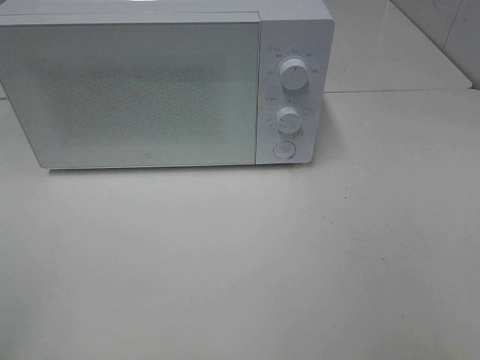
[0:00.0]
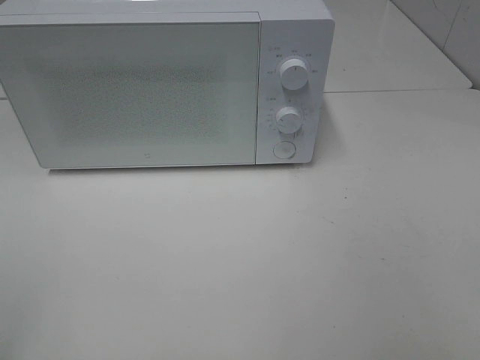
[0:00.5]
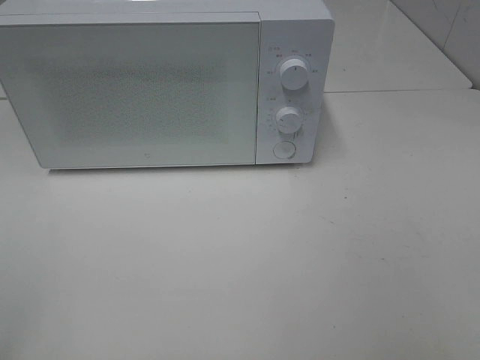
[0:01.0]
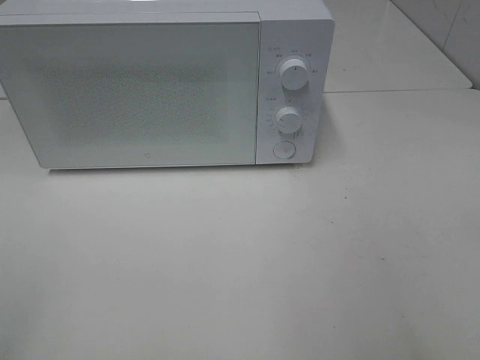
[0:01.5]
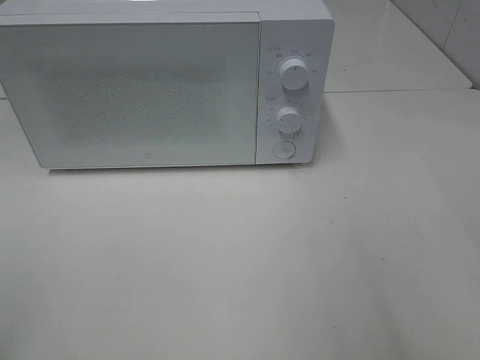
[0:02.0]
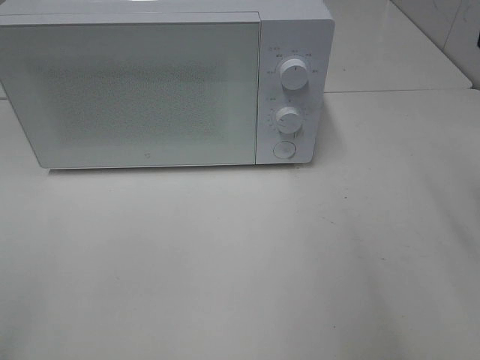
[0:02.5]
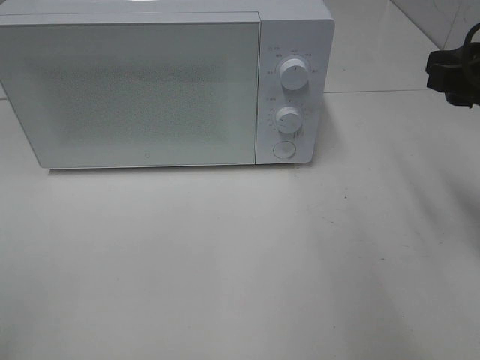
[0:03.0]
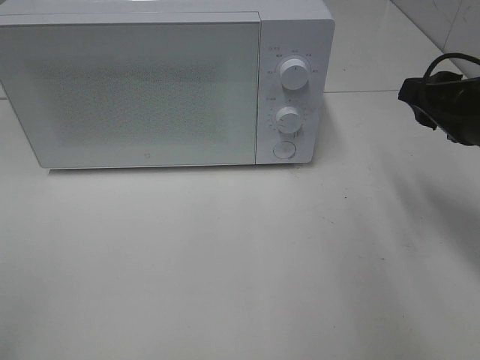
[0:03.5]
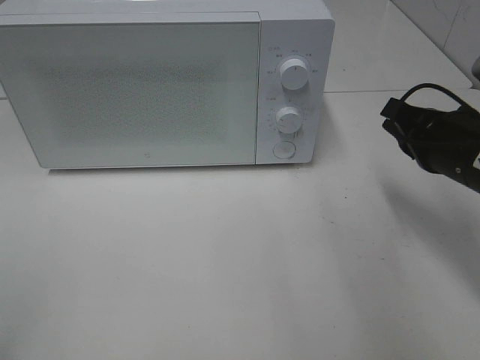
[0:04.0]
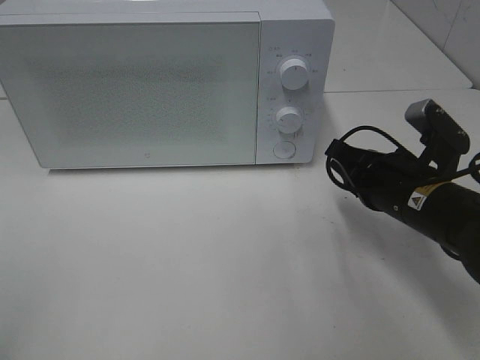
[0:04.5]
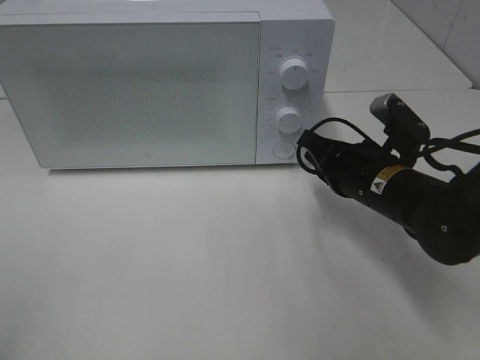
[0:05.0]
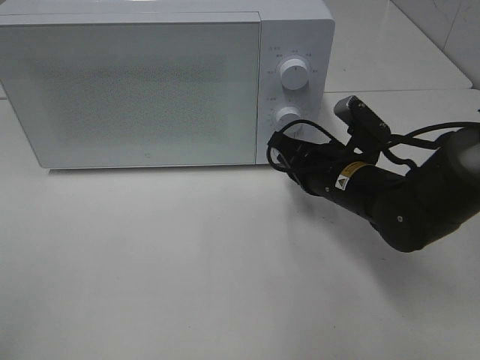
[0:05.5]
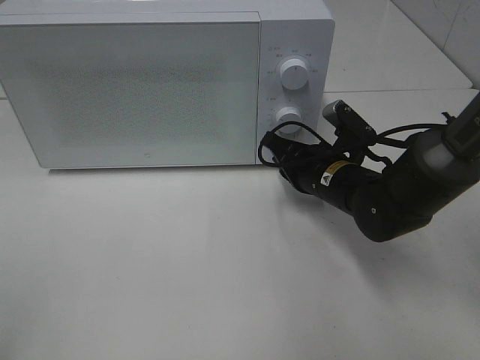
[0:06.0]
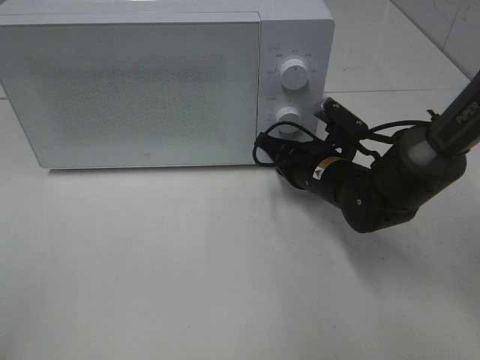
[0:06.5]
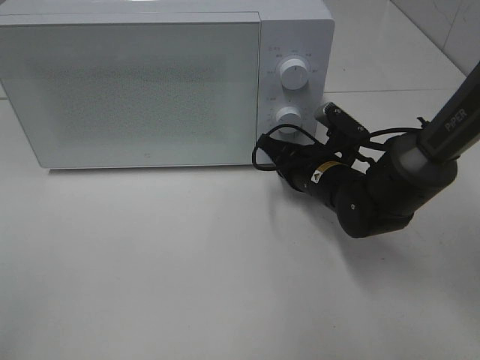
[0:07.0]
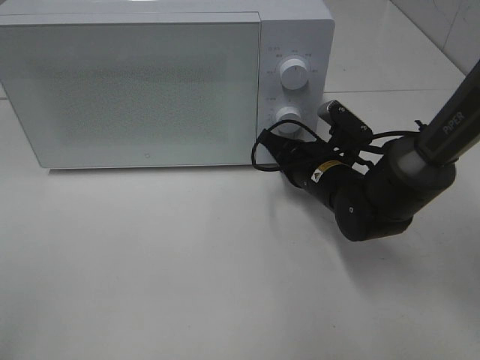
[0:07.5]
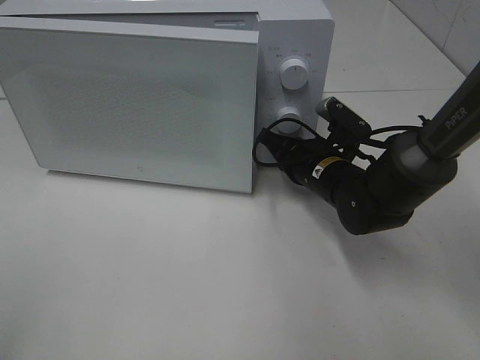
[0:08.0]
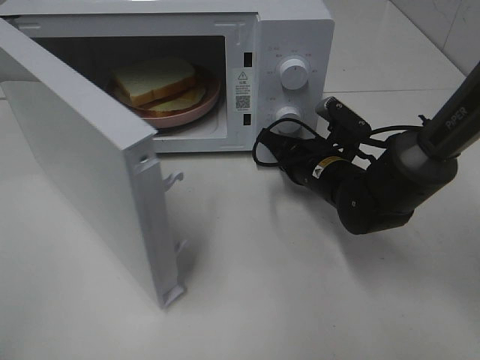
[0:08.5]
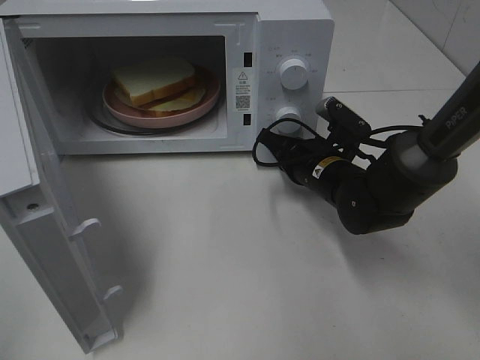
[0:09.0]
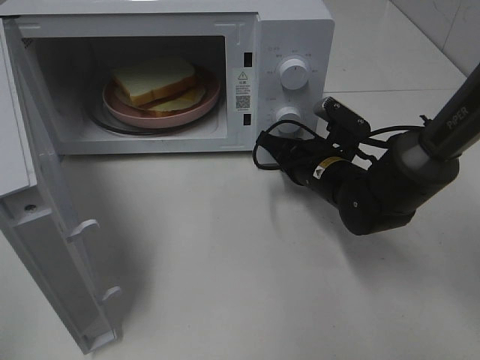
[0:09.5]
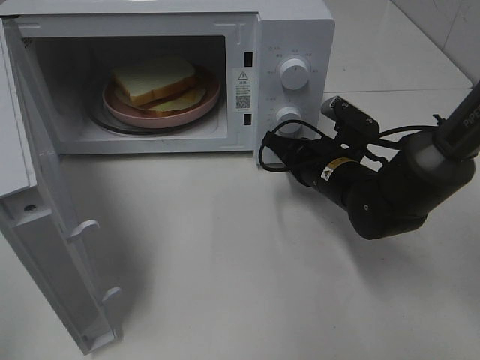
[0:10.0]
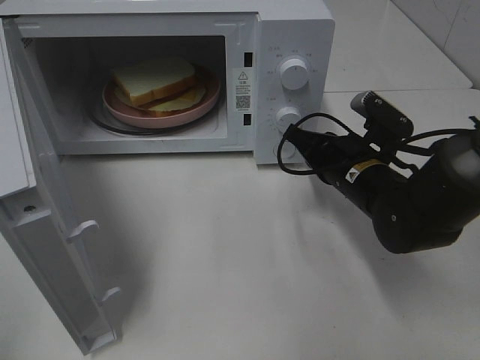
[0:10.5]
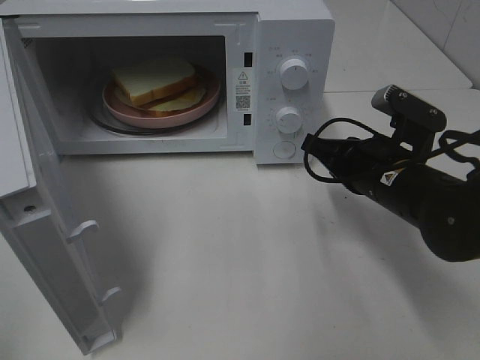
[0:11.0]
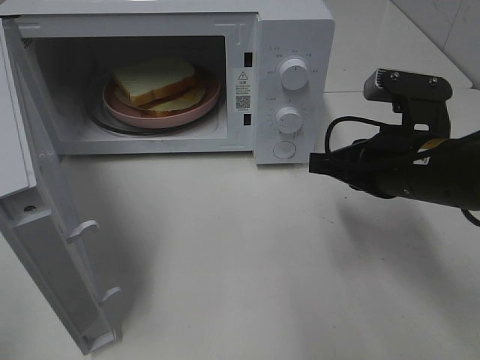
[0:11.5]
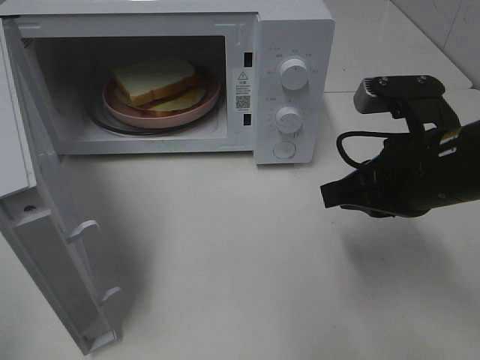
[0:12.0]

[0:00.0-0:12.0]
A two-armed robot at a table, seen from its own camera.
Task of the whole recording: Heat Sandwich.
Step, 0:00.0 to 0:10.5: Right hand: press the switch.
0:02.0 to 0:04.0: The right gripper goes about 20 cm downward and forward, and closes.
0:04.0 to 0:06.0: The right gripper goes approximately 15 cm to the left, downward and forward.
0:06.0 to 0:08.0: The grippers stay close to where they were, moving slightly.
0:10.0 to 0:12.0: The right gripper goes some 15 cm upward and backward.

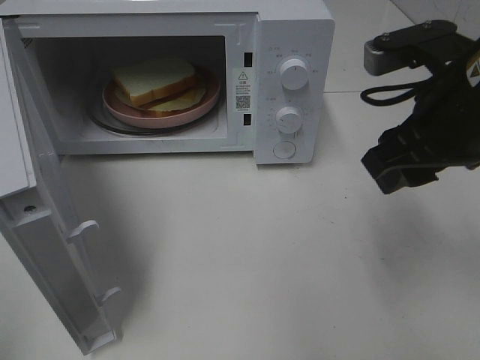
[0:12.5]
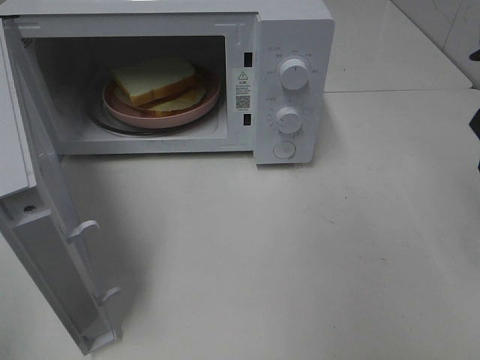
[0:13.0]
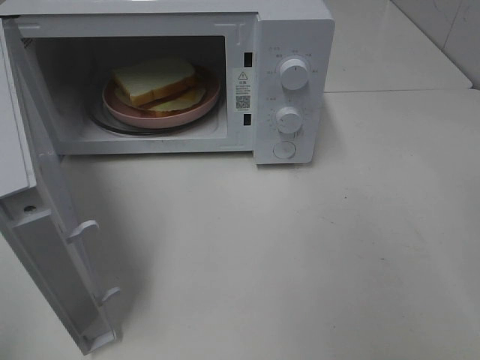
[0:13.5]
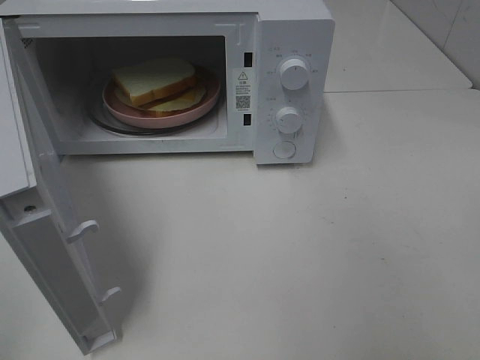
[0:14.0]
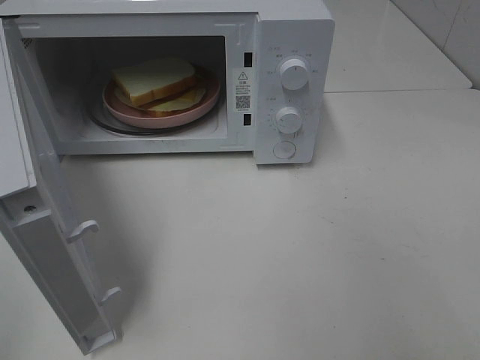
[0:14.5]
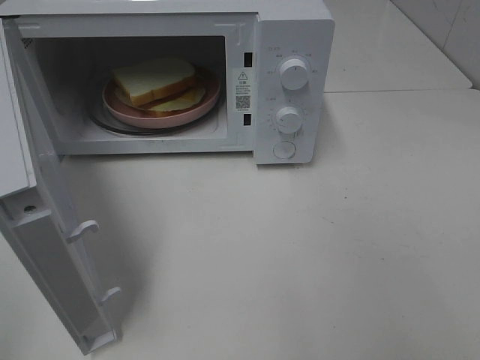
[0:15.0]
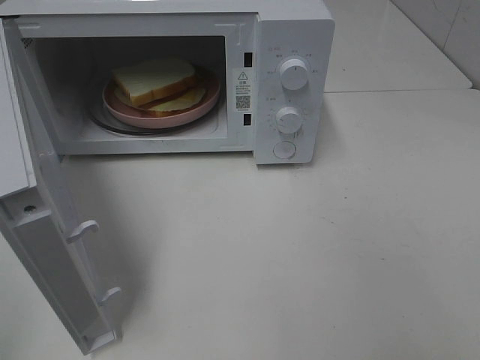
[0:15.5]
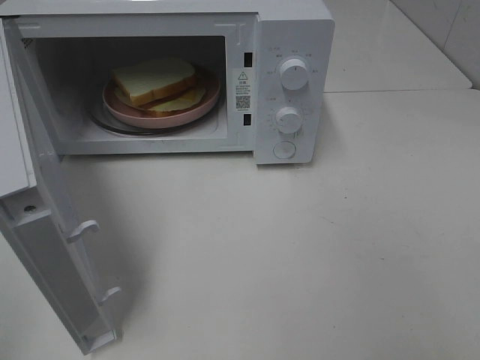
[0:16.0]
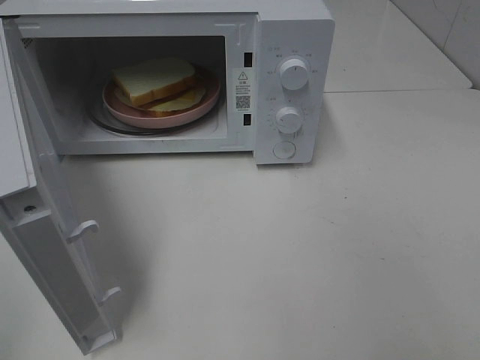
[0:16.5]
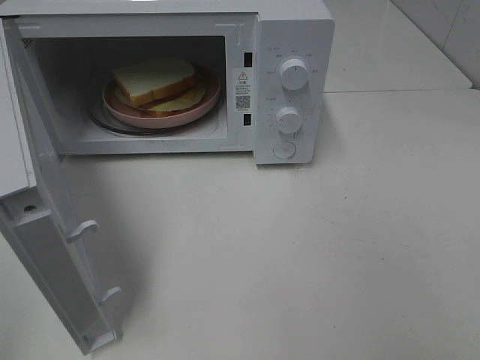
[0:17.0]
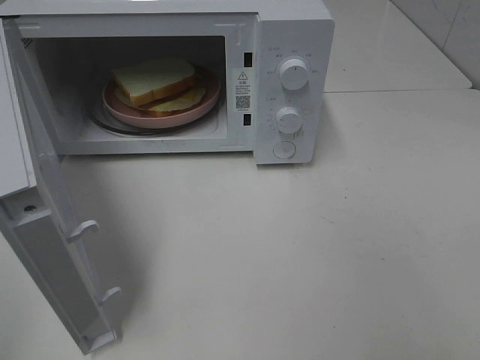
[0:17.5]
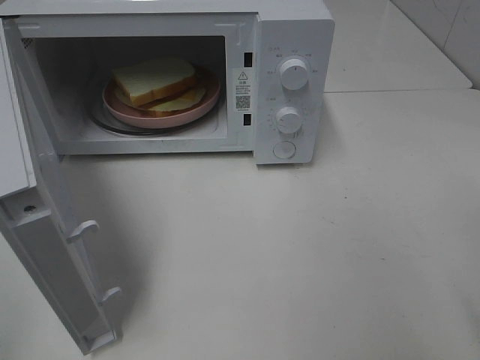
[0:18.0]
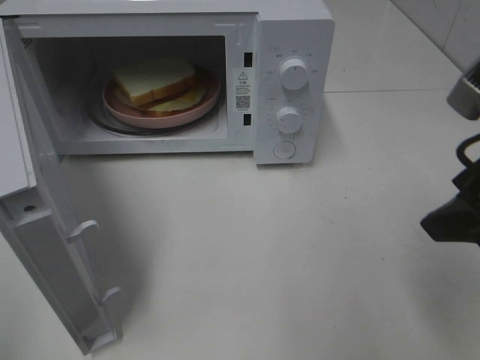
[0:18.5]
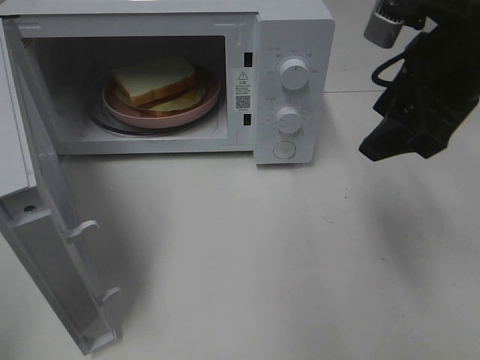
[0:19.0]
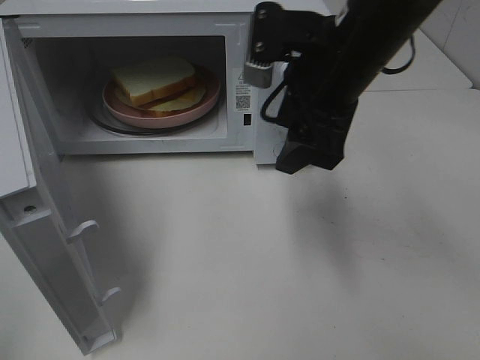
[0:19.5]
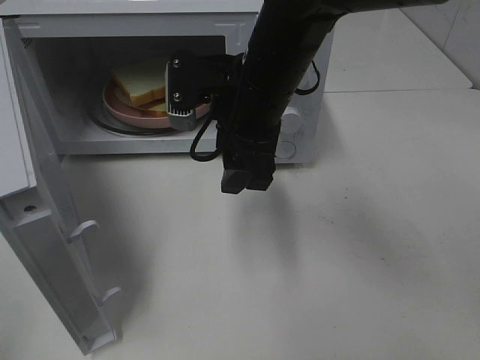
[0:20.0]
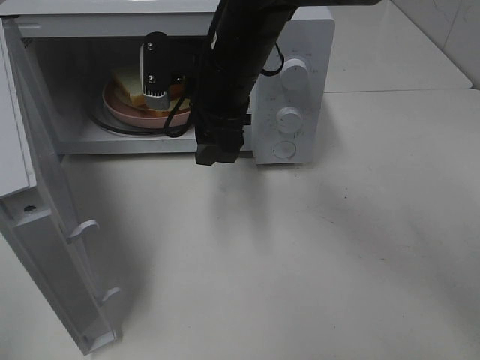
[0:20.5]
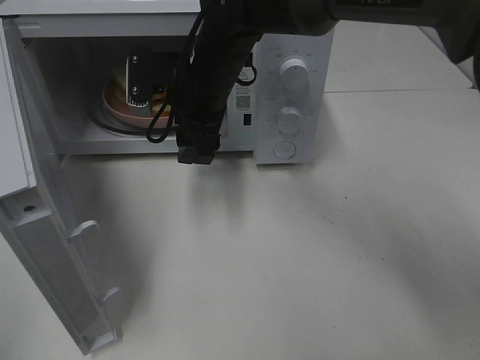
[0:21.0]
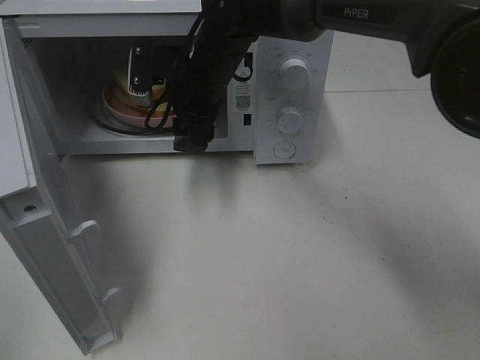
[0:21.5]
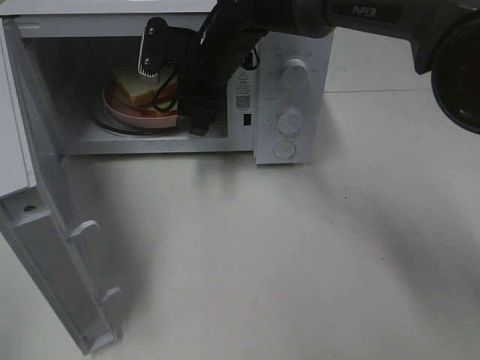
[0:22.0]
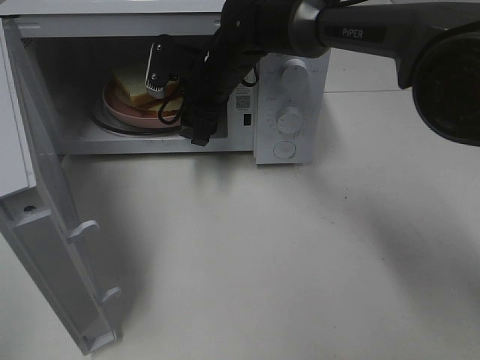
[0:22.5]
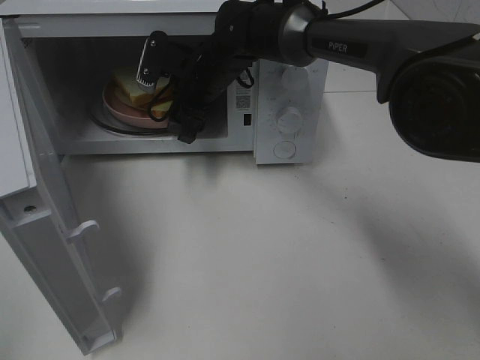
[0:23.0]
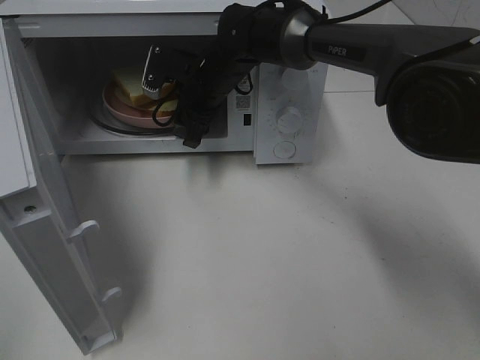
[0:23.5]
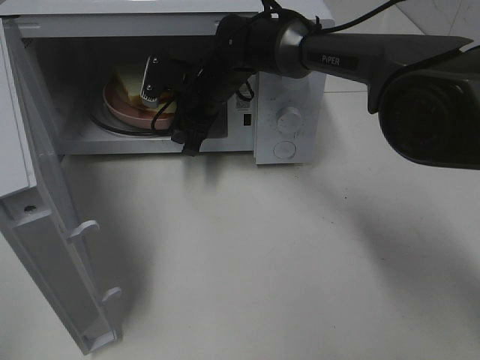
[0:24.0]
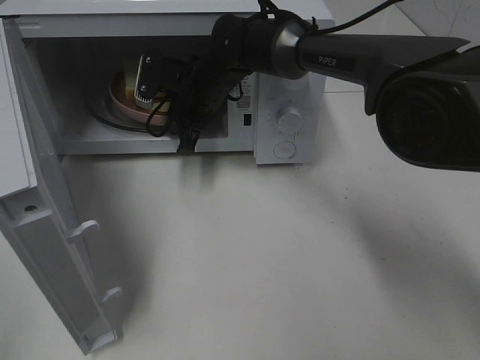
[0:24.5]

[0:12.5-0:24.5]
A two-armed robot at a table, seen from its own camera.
Task of the whole recording: Heat Sandwich.
0:12.5 to 0:14.5: The right gripper shifts about 20 cm backward and to the right.
0:16.5 to 0:18.5: The right gripper shifts approximately 20 cm forward.
0:18.5 to 0:20.5: The right gripper shifts roughly 30 cm to the left and forward.
0:20.5 to 0:22.5: The right gripper shifts about 10 cm forward and downward.
0:22.5 to 0:24.5: The right gripper closes.

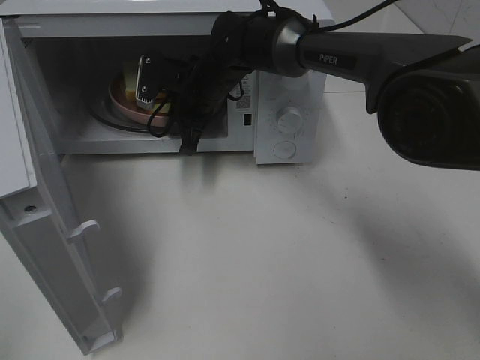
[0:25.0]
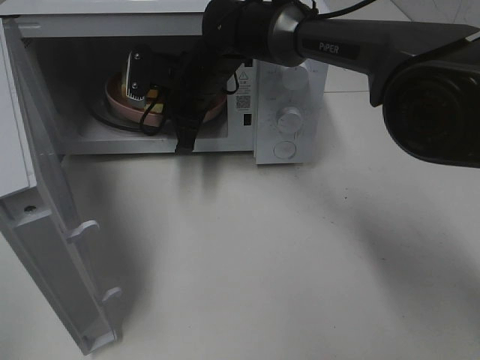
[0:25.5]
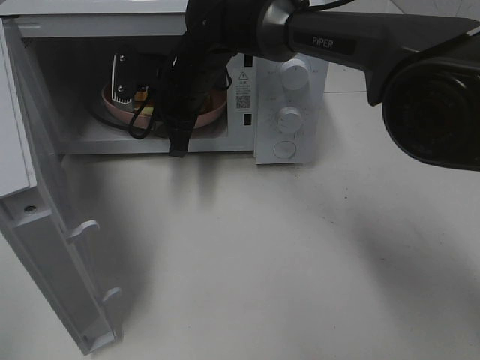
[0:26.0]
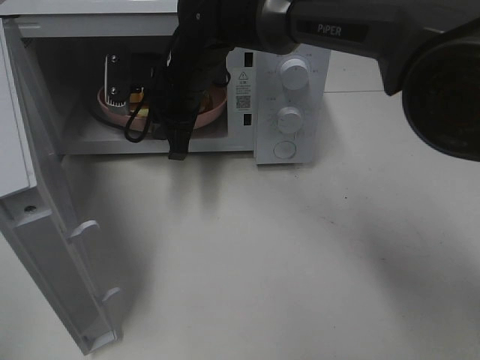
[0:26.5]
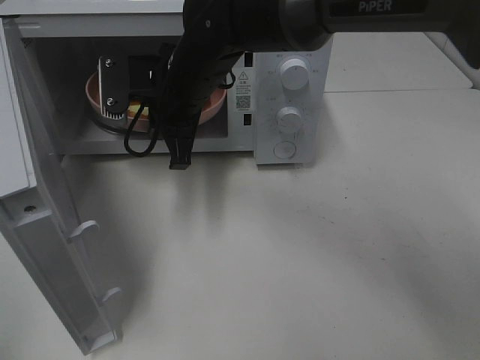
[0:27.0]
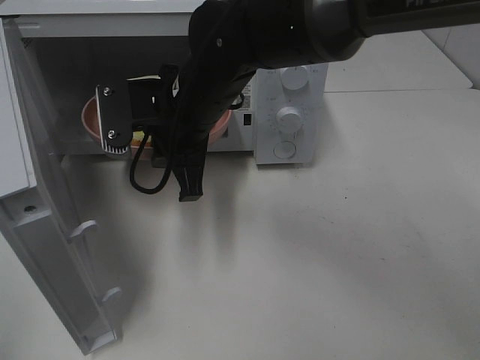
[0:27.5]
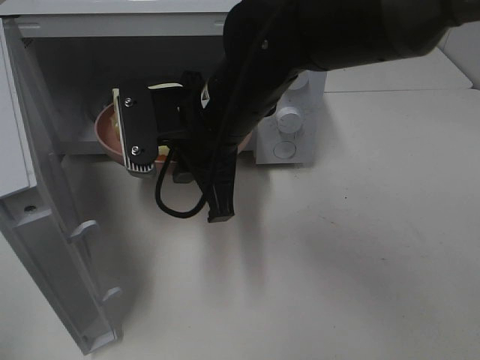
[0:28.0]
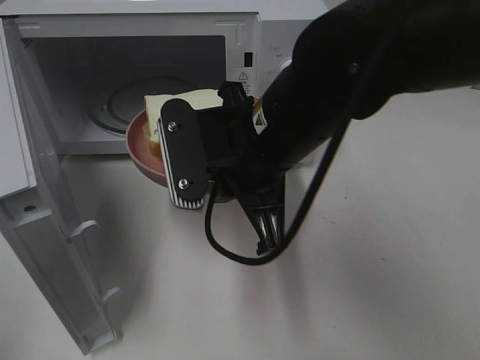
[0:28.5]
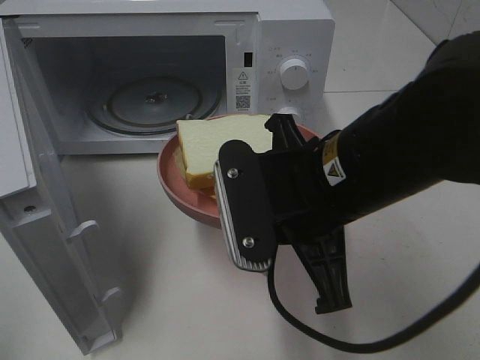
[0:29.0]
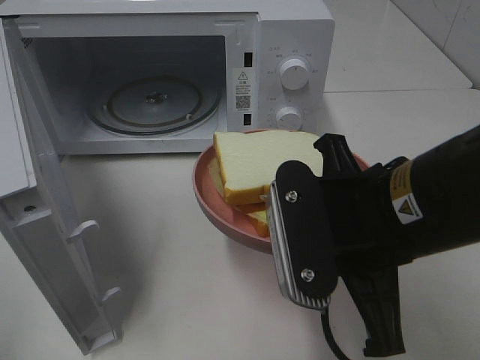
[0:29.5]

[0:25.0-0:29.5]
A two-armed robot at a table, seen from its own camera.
Task of the whole recording: Heat Sandwich.
0:25.0 to 0:27.0: The right gripper travels backward and upward by some 10 cm.
0:27.0 to 0:29.5: The right gripper heads backward and to the right, covering roughly 25 cm.
